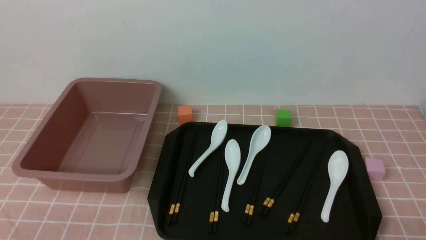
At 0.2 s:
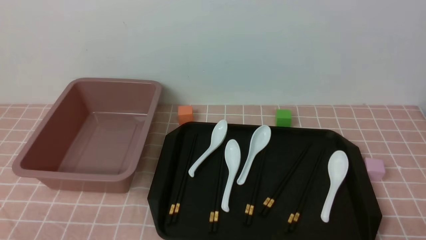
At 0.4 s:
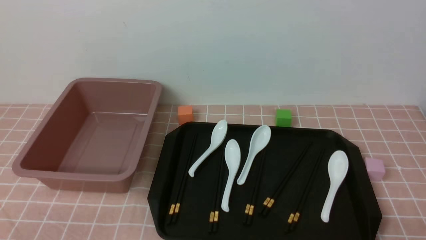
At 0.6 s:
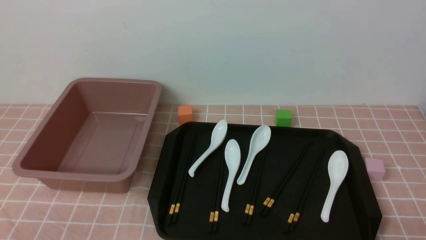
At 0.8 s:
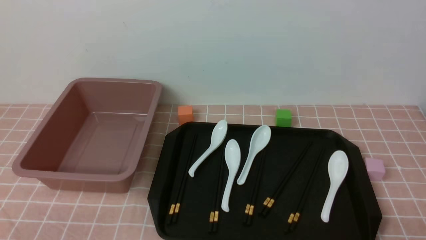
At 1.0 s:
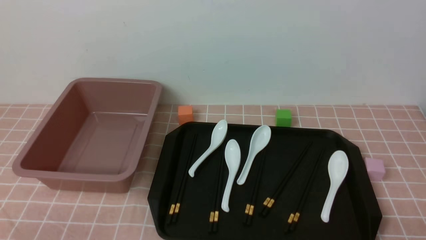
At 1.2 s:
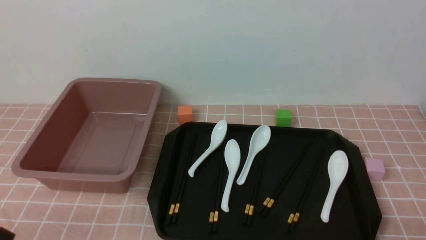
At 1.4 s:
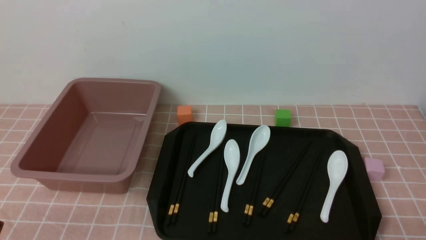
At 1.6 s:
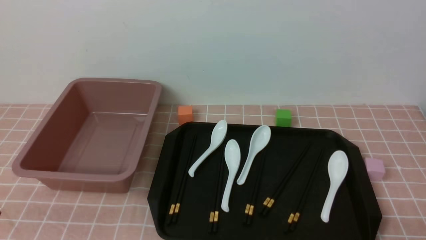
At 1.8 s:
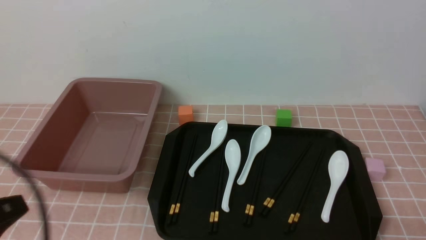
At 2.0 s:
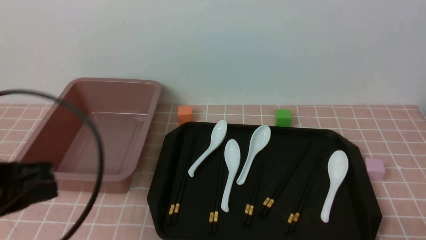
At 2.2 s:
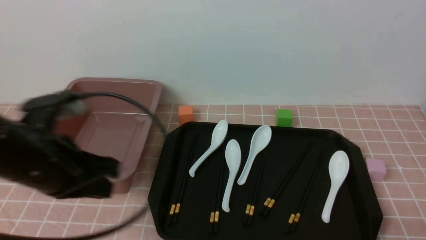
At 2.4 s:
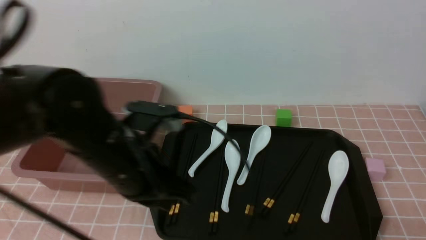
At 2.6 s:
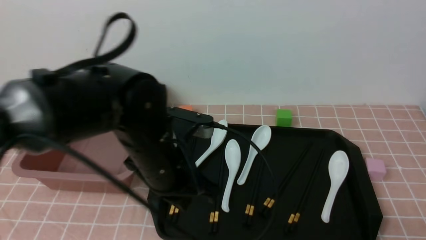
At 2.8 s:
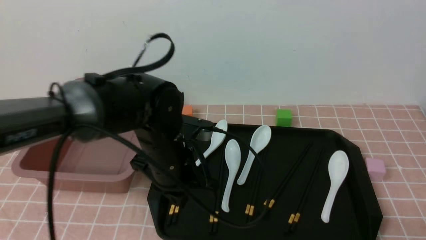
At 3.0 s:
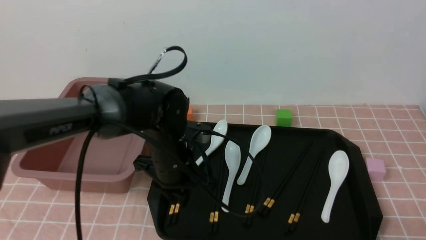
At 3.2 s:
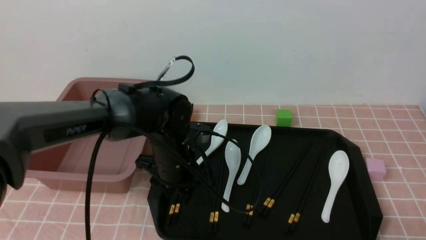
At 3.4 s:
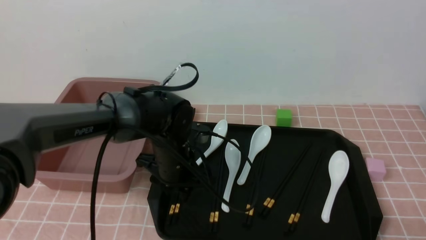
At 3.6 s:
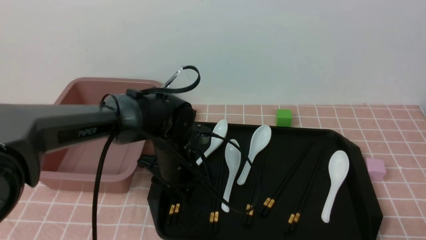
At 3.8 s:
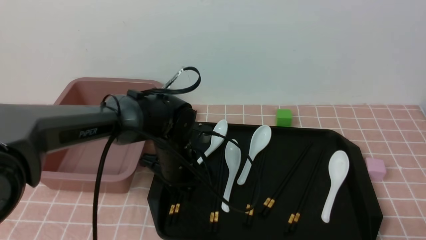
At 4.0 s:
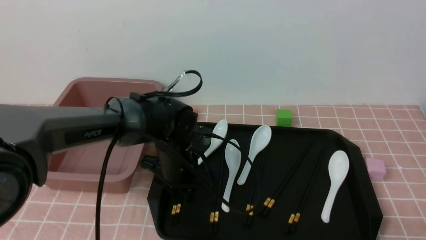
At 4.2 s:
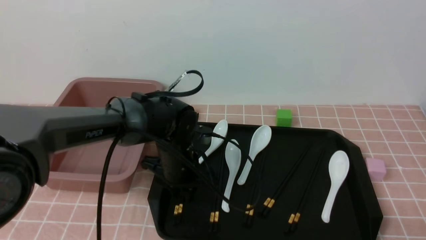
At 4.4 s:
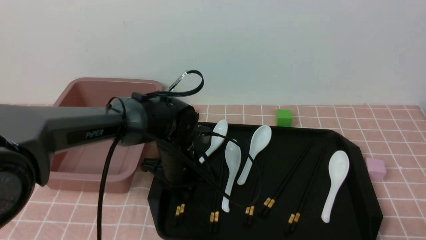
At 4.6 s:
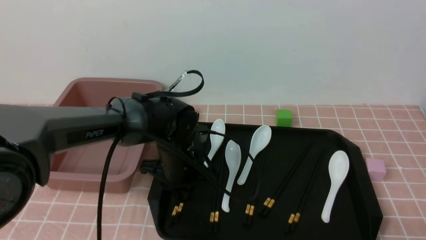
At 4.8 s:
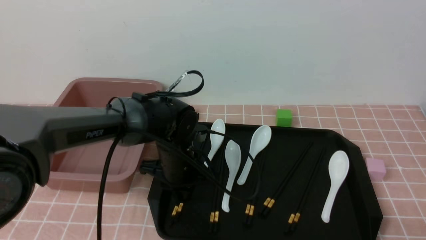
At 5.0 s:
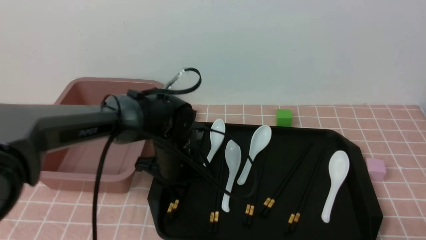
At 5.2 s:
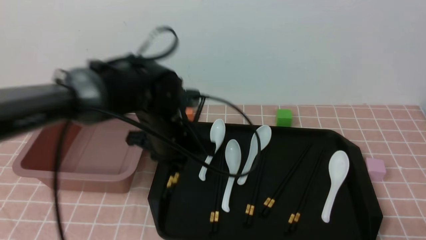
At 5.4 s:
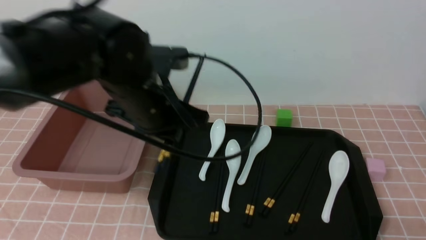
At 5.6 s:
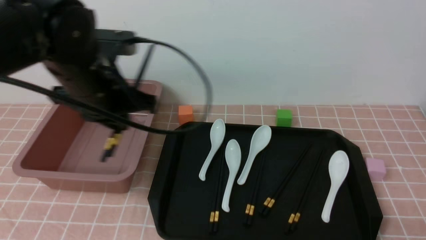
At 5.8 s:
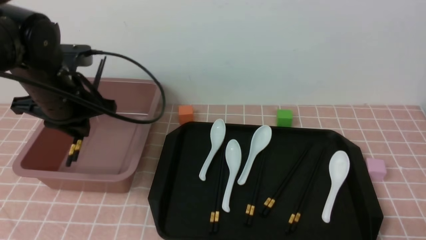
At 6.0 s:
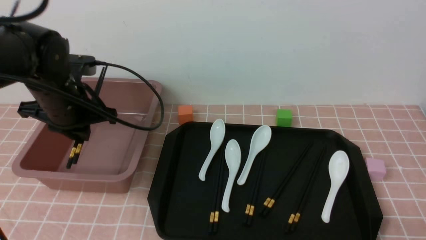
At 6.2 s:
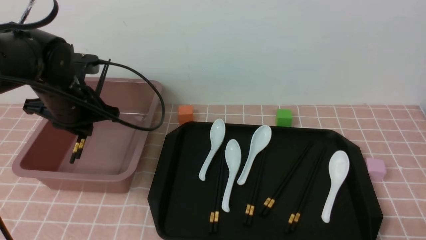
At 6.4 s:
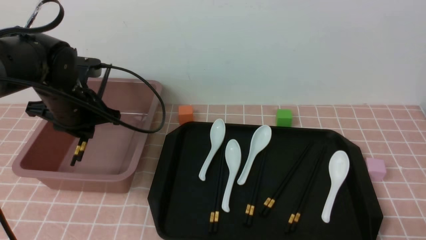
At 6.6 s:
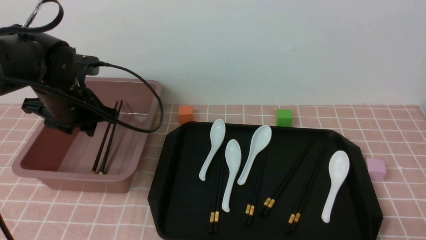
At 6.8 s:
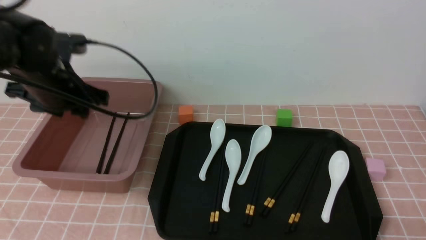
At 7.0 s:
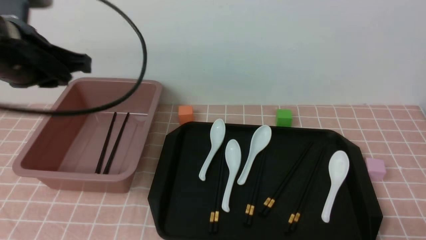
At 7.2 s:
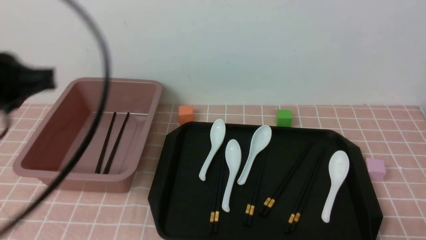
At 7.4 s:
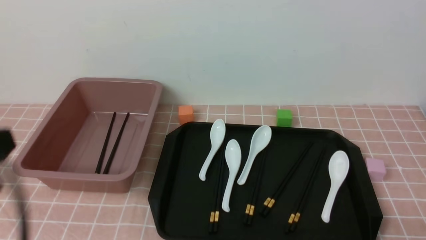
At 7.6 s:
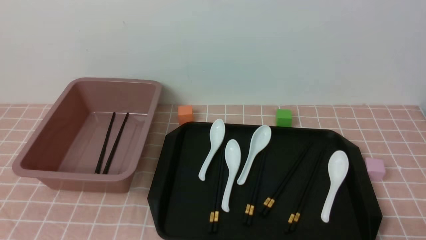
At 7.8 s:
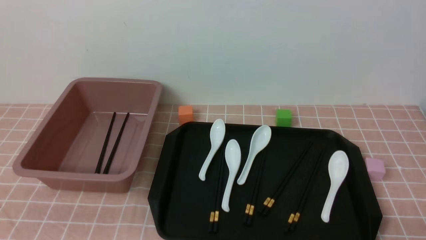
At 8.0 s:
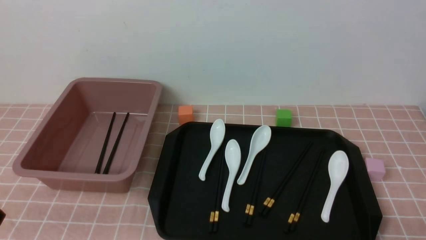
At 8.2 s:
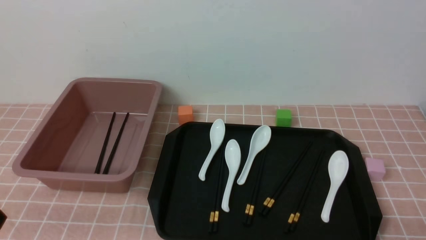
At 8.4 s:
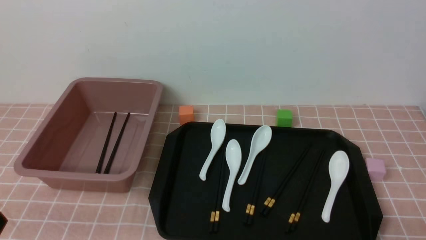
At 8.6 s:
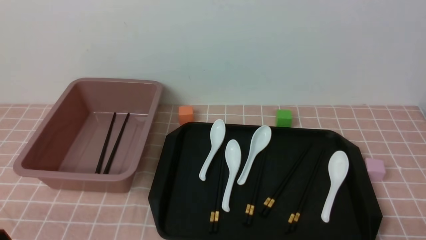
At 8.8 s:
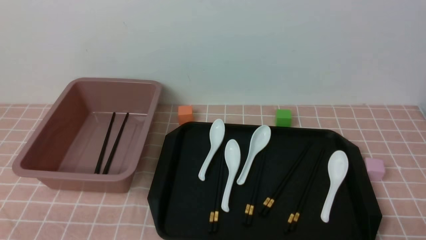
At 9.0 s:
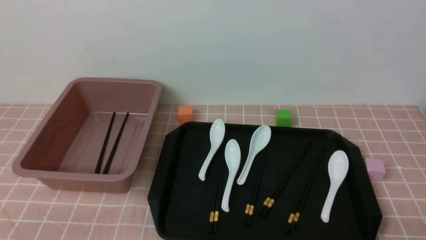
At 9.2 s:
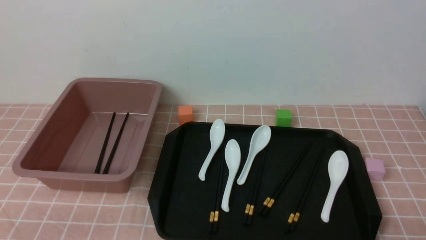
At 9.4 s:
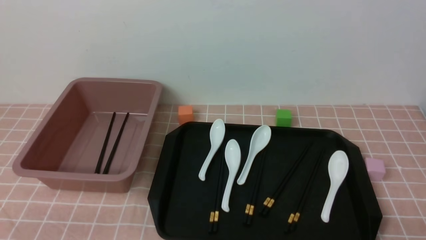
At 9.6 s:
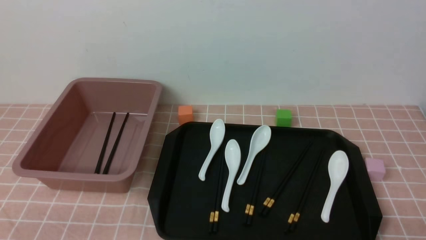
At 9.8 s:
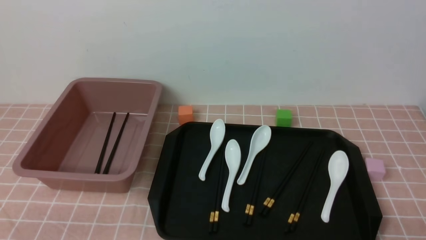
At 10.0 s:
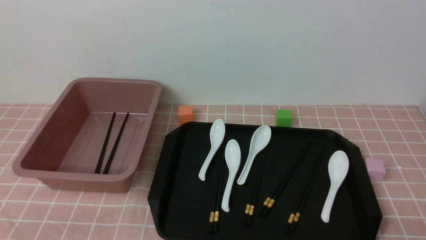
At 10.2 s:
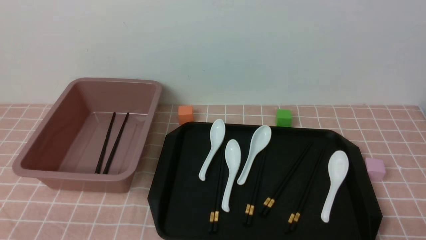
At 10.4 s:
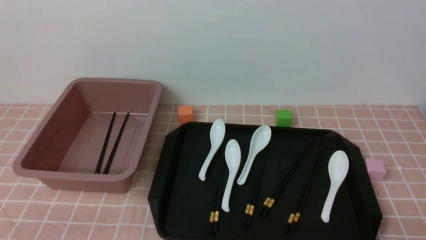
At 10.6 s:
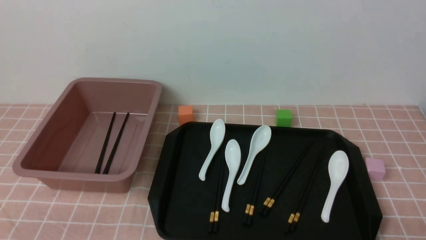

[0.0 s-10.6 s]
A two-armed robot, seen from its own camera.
Step, 0.0 to 5.2 s: use the left arm to grab a pair of chopsticks.
Step, 5.6 to 6.8 s: use the left arm to put the chopsticks into the lunch box.
1.6 to 3.0 s: The left gripper is displaced forward and to the right by roughly 30 cm, and closes, then opens again.
3.0 to 4.6 s: The left gripper travels downward by about 5 cm, and opens, then closes once more.
4.6 to 6.0 s: The left gripper moves to the left and upward, about 20 cm.
6.0 to 7.6 s: The left gripper goes roughly 30 cm backward, and closes up.
9.0 to 10.6 s: Neither gripper changes place.

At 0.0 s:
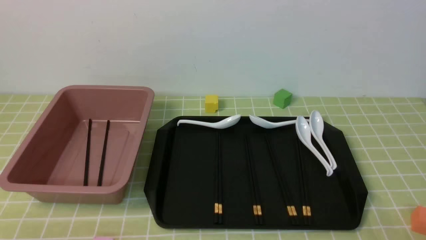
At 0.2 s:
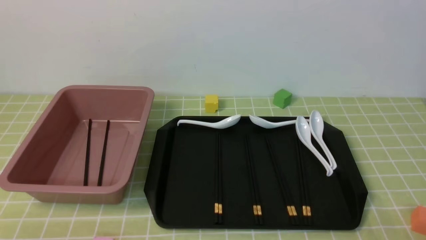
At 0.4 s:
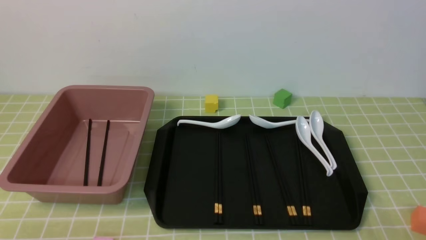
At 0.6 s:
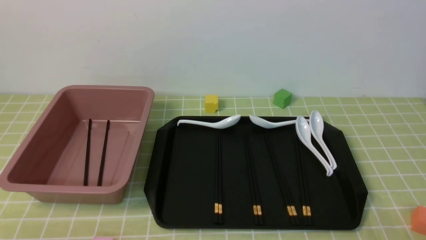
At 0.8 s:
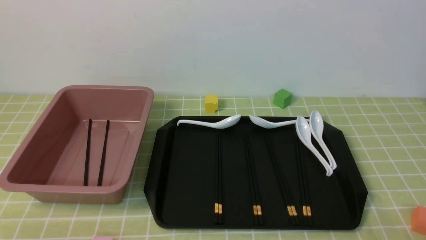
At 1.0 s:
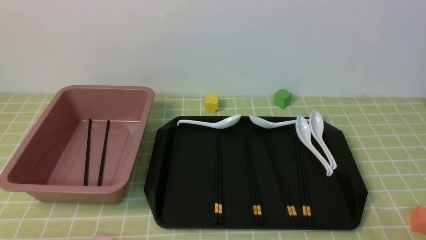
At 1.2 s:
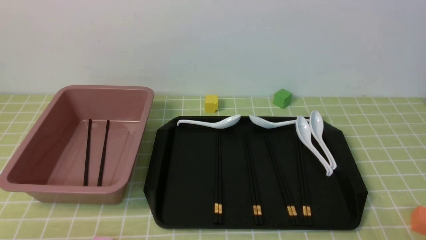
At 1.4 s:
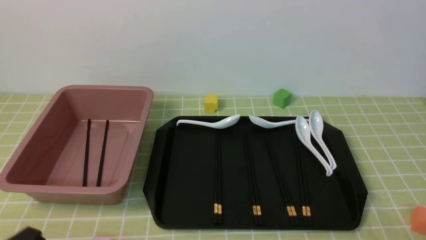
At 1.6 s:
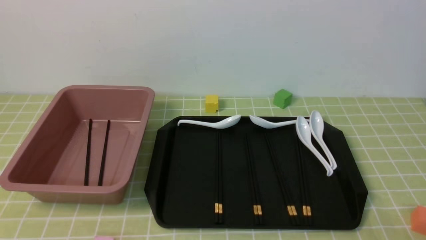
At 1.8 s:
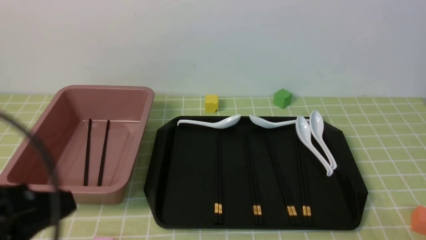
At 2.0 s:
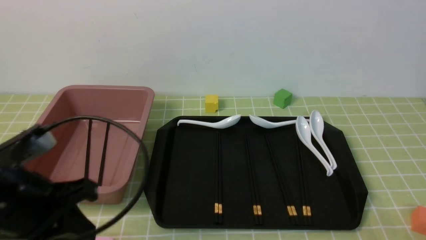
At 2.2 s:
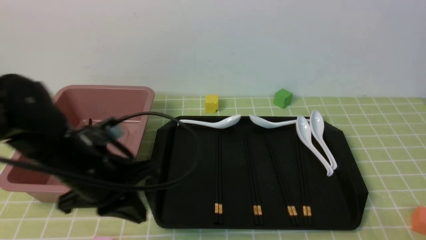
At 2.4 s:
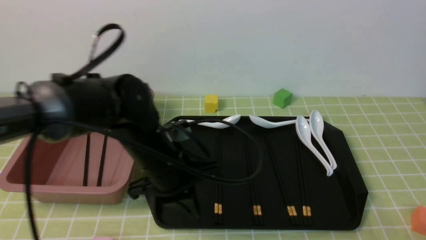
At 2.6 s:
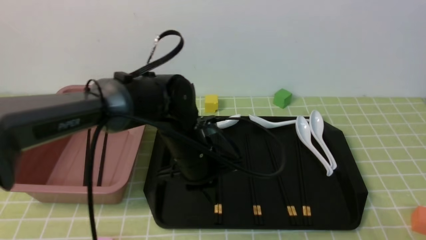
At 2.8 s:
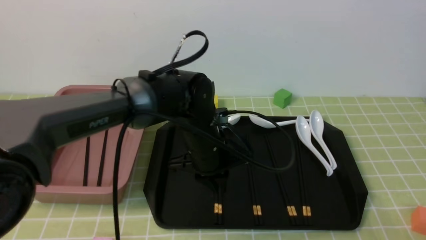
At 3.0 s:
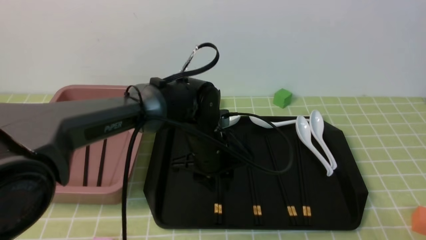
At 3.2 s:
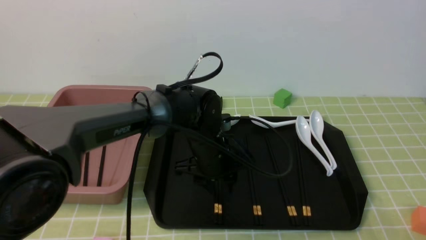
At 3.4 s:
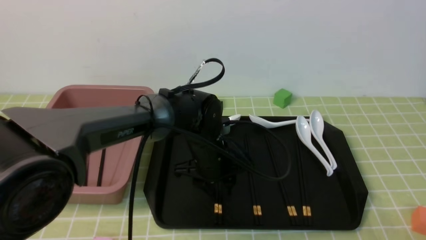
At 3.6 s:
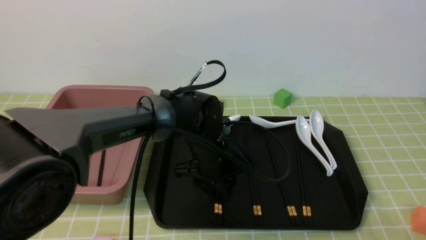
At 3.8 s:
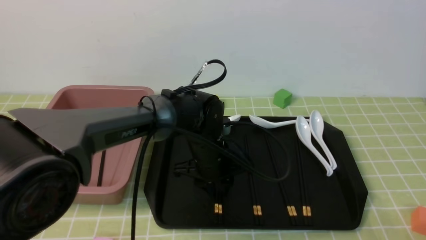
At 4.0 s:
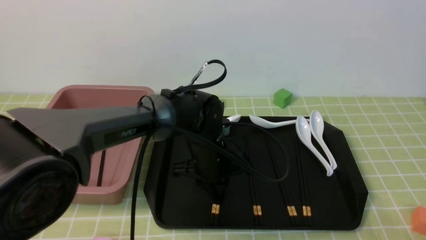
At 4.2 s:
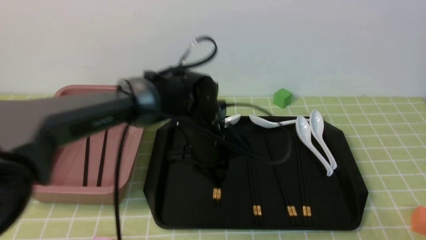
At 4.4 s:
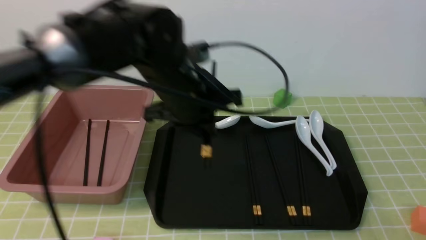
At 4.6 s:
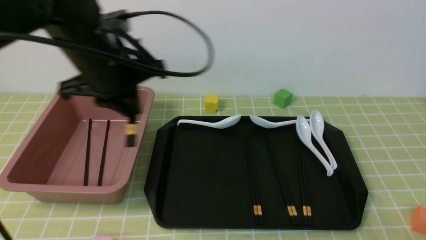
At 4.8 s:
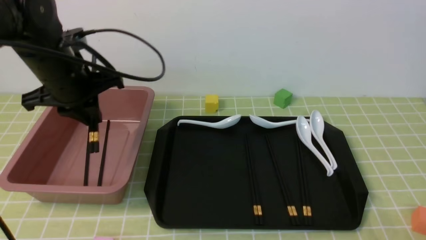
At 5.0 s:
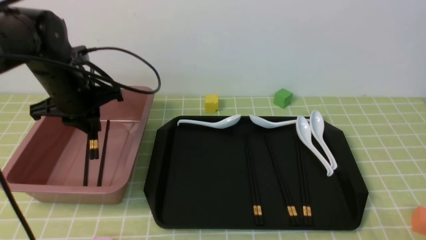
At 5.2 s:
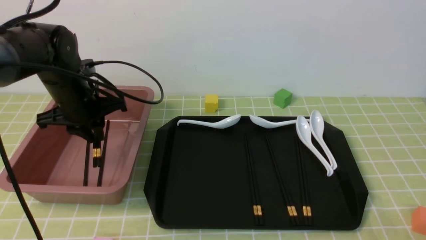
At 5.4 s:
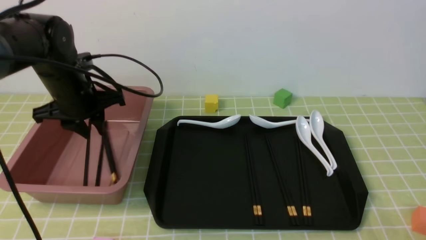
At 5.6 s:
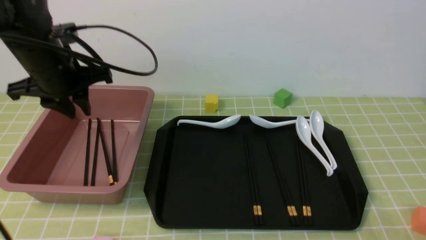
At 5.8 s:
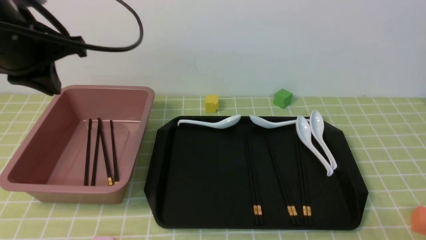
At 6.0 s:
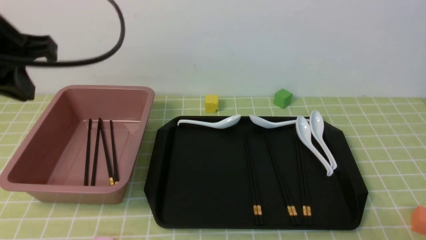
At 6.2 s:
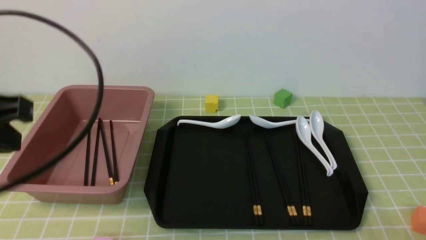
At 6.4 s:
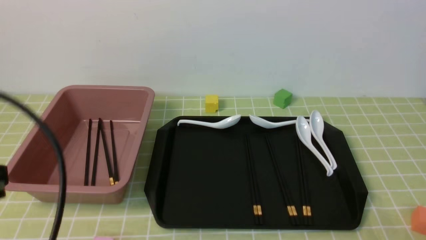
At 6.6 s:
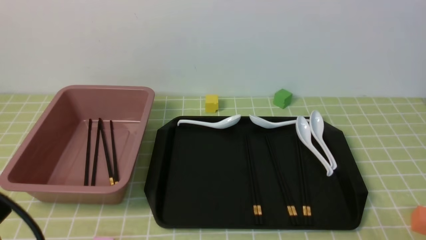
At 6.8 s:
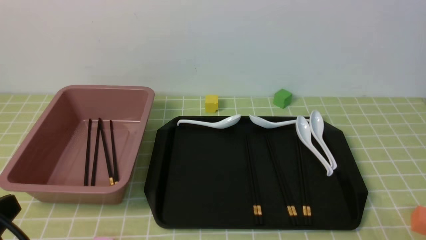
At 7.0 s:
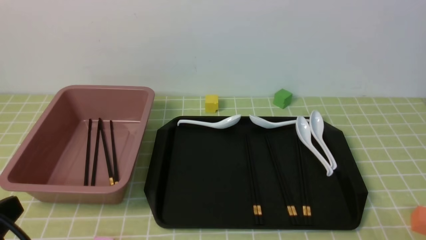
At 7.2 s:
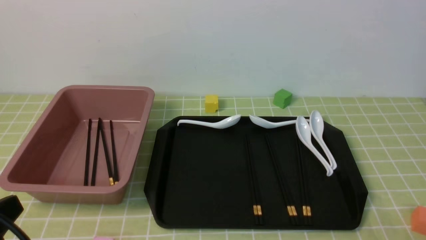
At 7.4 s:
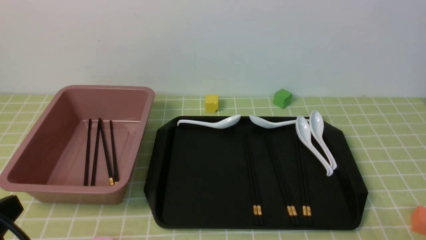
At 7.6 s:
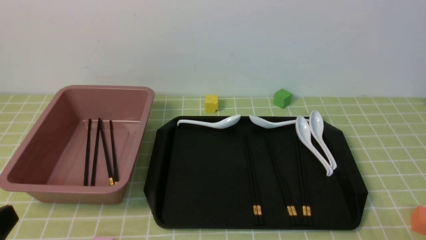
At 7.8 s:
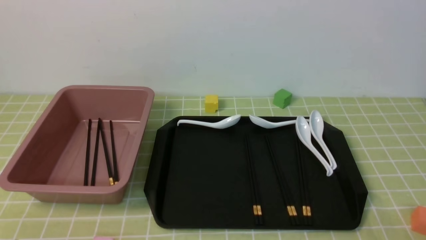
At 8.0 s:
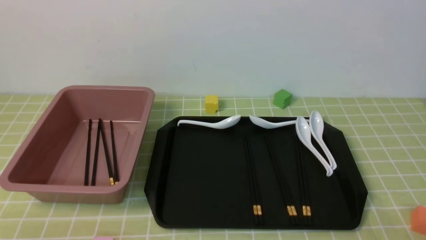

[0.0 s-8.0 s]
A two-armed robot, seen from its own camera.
Step, 0.0 to 4.2 s: use the left arm to grab a pair of chopsticks.
Step, 4.4 to 5.6 s: use the left arm to put the chopsticks into the lunch box.
1.6 to 3.2 s: The left gripper shifts roughly 40 cm forward and to the right, and opens its fingers.
3.2 to 4.8 s: The left gripper heads to the left and upward, covering roughly 20 cm, and closes up.
4.8 to 6.4 s: The left gripper travels backward by some 20 cm, and closes.
6.4 to 8.0 s: The left gripper is displaced downward and backward by approximately 20 cm.
